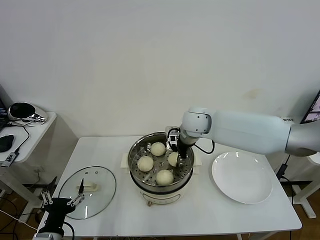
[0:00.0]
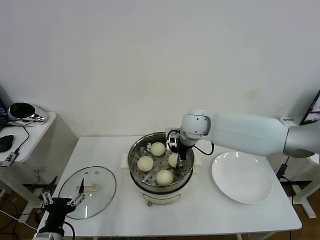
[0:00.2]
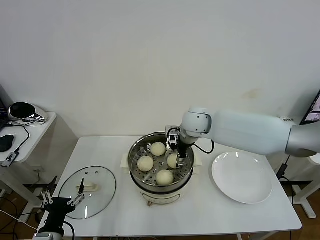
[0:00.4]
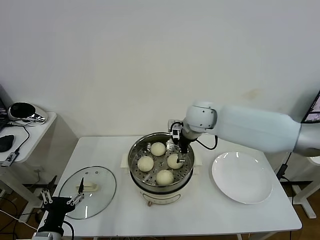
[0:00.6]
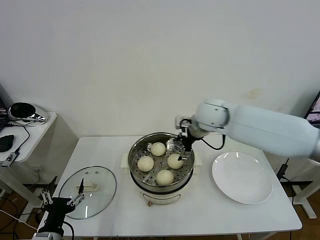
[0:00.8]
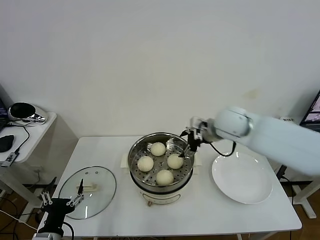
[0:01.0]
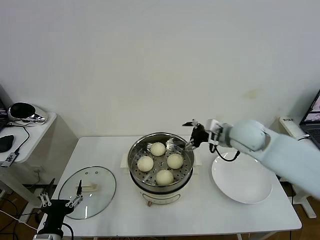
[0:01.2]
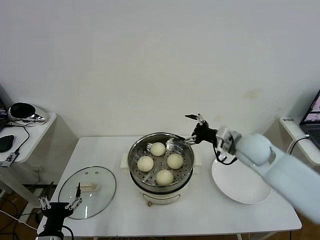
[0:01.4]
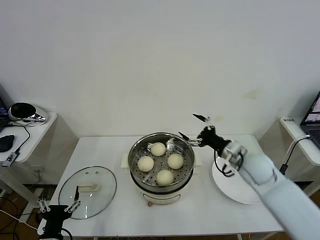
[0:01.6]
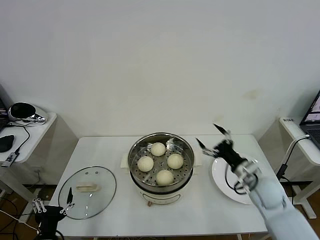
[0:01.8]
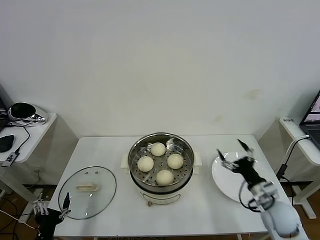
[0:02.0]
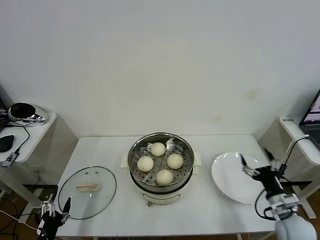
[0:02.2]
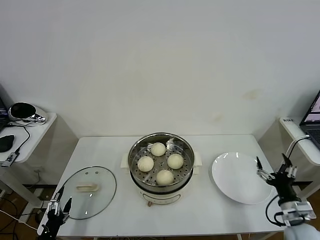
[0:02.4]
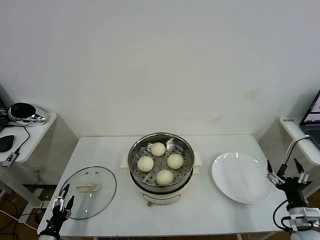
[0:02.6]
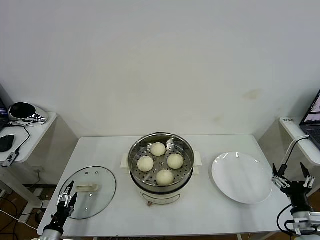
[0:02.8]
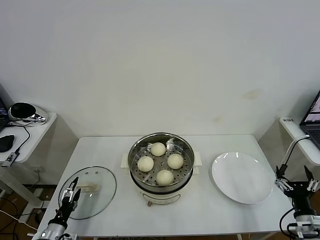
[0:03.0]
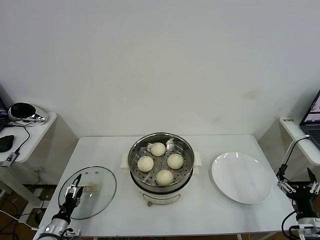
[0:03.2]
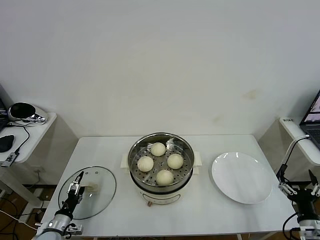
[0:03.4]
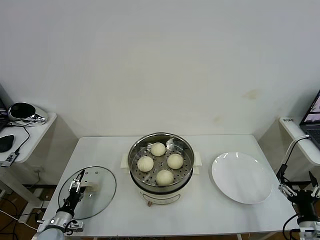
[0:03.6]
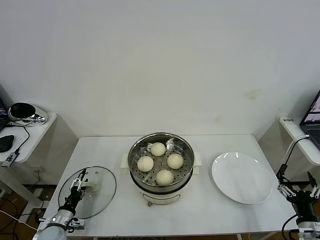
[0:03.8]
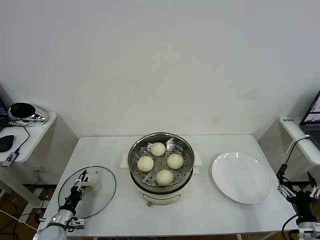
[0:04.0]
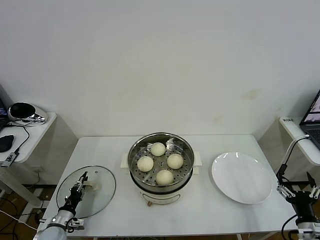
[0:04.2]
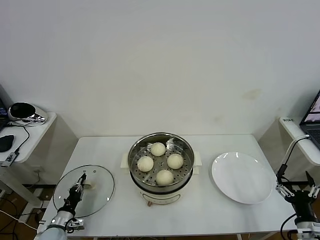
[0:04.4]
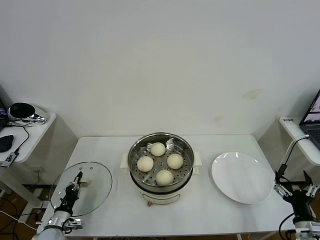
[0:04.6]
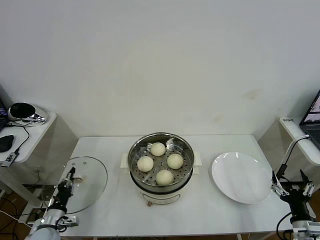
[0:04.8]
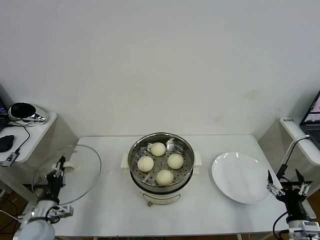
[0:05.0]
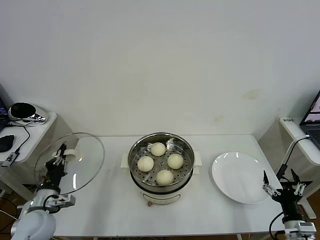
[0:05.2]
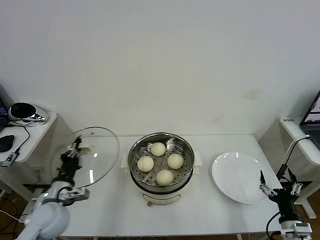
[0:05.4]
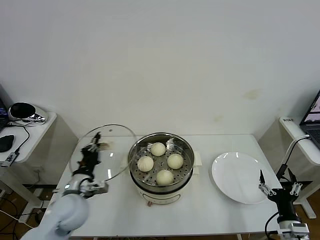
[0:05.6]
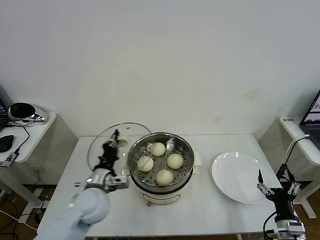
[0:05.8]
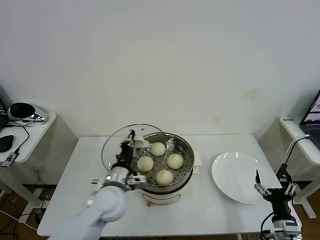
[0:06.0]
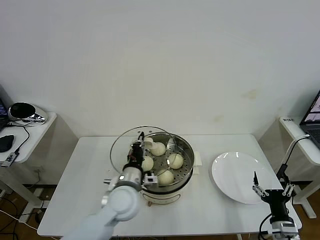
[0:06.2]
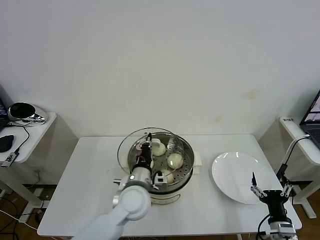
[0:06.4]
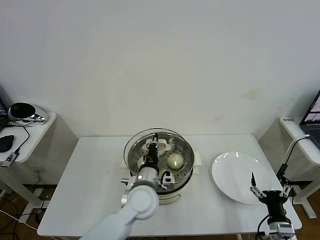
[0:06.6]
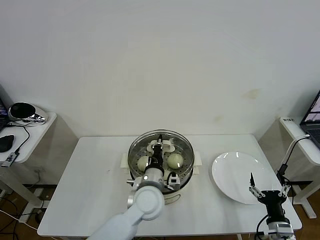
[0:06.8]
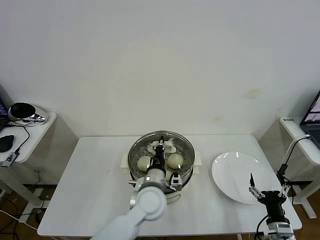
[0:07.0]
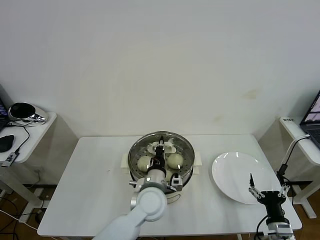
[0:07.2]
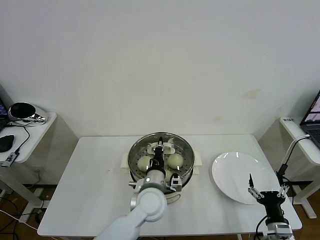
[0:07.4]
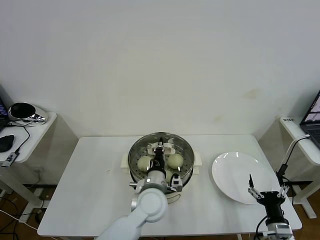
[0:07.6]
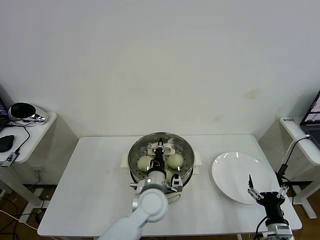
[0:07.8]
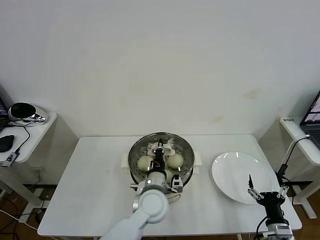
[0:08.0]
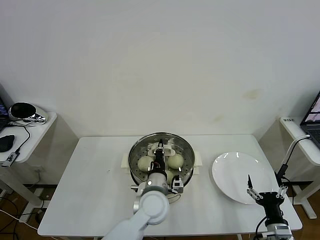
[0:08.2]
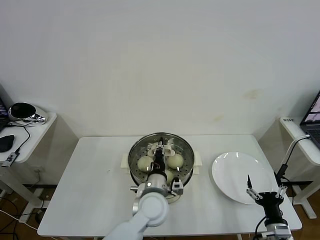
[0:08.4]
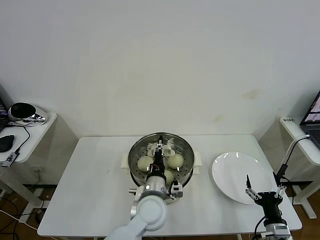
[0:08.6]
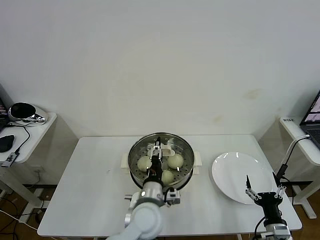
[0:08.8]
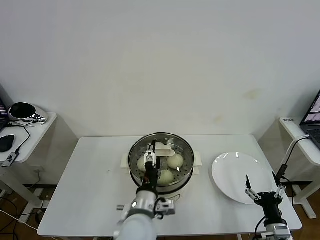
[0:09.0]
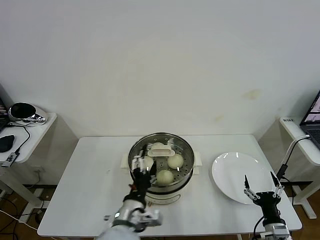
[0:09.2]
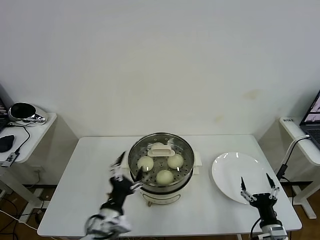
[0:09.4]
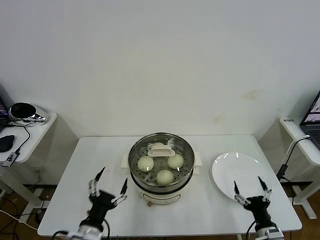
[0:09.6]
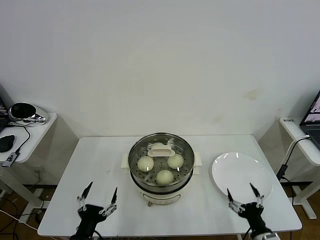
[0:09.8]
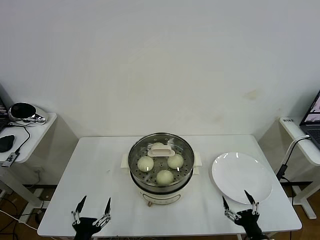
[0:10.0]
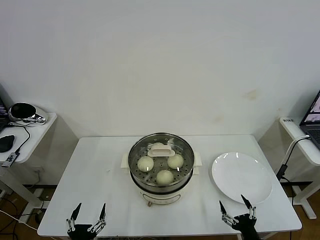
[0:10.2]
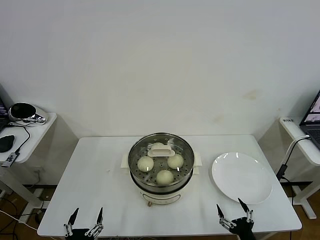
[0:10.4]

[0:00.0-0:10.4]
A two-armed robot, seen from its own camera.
Task of the whole recording: take steamed baozi put them in steamer then cover it.
Step, 0:00.6 to 0:04.4: Grasp the pot lid with left gripper.
Step, 0:04.8 to 0:08.6: Place the pot lid on the steamer with left gripper.
0:00.0 to 0:01.4: The right gripper heads to the right and backward, covering about 20 cm, and opens up.
0:01.4 to 0:03.0: The left gripper heads downward, to the left and forward, covering roughly 15 cm. Meanwhile the right gripper heads backward, downward and to the right, covering approximately 35 cm.
0:03.0 to 0:04.4: The left gripper shifts approximately 5 cm forward, and closes its fingers.
0:04.4 to 0:06.0: The right gripper moves to the left, some 5 cm. Meanwhile the left gripper goes some 35 cm to the right and upward.
0:06.0 to 0:07.4: The left gripper heads to the right, covering some 10 cm.
0:07.4 to 0:09.0: The left gripper heads backward, covering some 5 cm, and opens.
0:09.0 to 0:10.4: The left gripper shifts about 30 cm to the left, backward and downward. Meanwhile the right gripper is displaced backward by some 5 cm.
